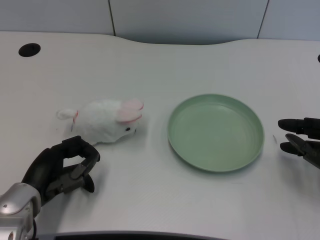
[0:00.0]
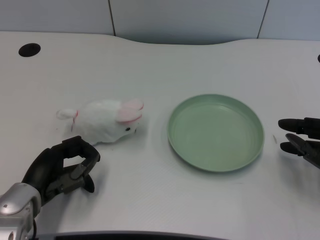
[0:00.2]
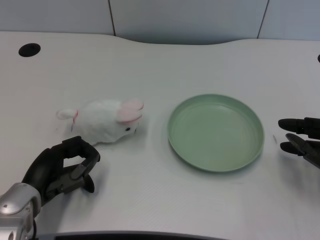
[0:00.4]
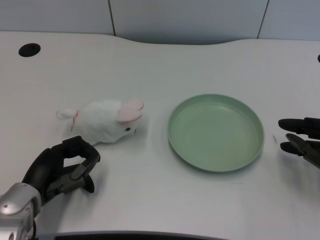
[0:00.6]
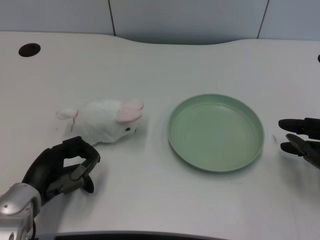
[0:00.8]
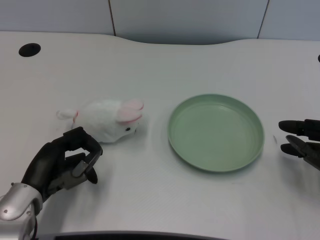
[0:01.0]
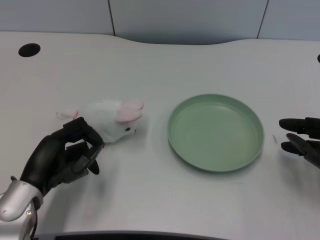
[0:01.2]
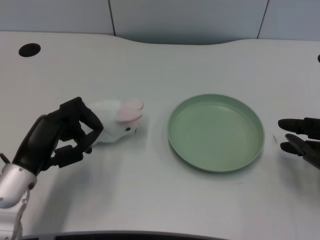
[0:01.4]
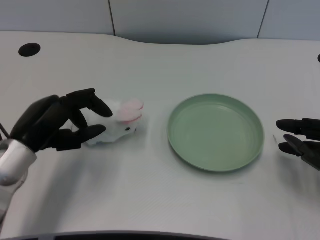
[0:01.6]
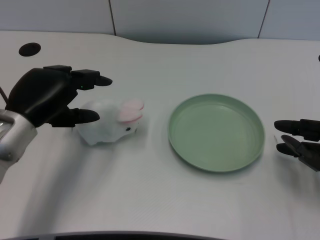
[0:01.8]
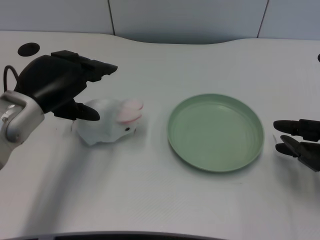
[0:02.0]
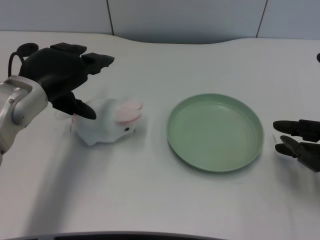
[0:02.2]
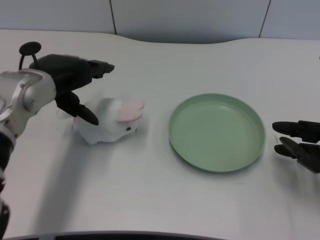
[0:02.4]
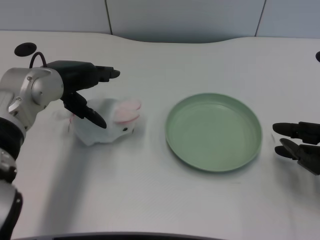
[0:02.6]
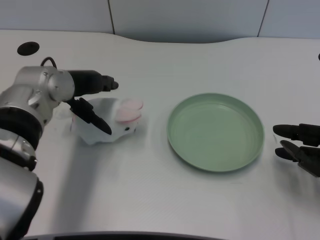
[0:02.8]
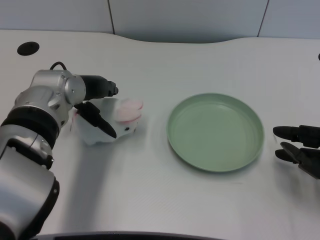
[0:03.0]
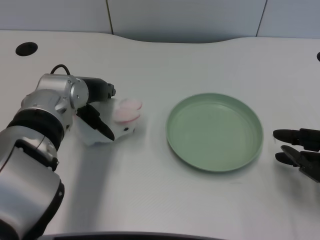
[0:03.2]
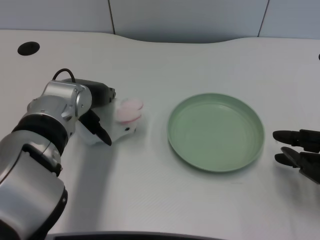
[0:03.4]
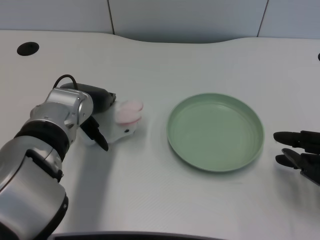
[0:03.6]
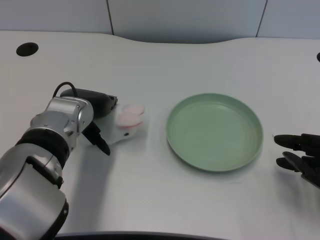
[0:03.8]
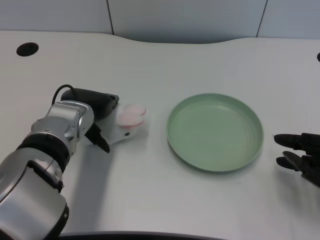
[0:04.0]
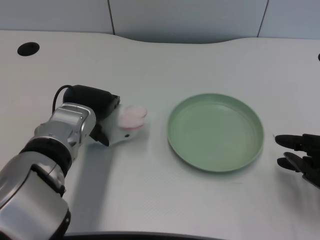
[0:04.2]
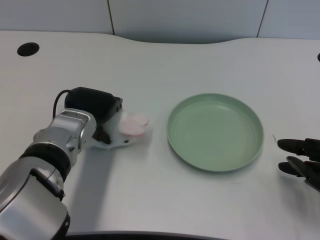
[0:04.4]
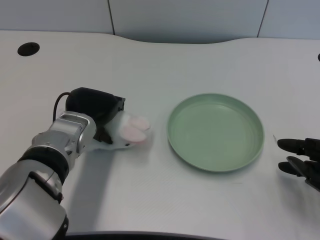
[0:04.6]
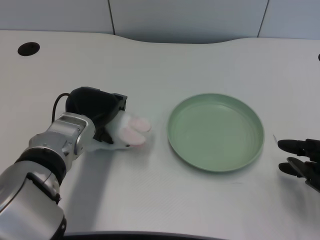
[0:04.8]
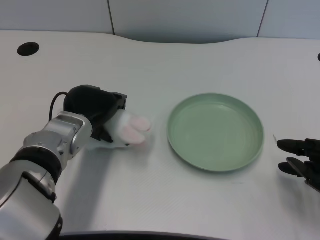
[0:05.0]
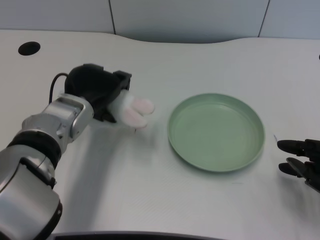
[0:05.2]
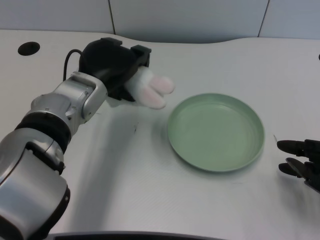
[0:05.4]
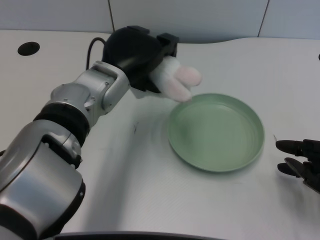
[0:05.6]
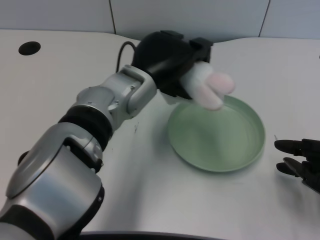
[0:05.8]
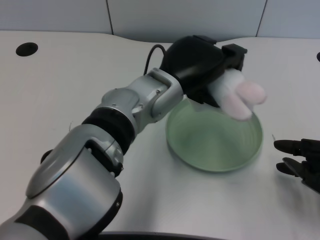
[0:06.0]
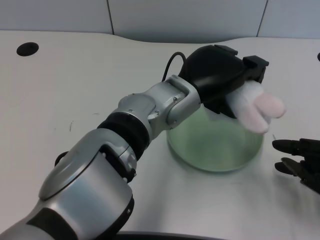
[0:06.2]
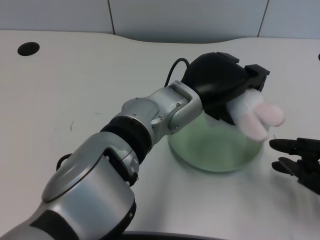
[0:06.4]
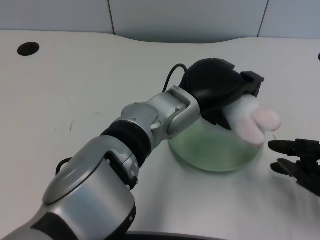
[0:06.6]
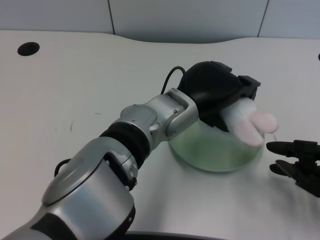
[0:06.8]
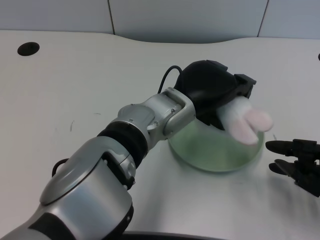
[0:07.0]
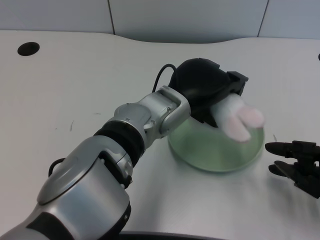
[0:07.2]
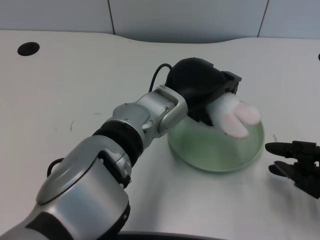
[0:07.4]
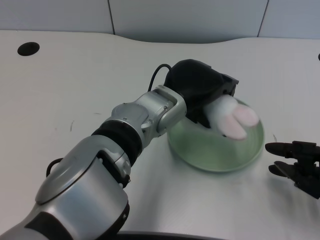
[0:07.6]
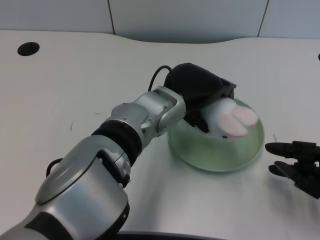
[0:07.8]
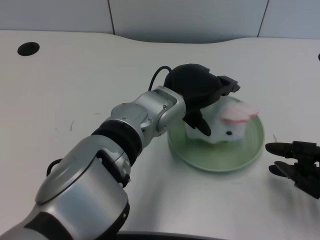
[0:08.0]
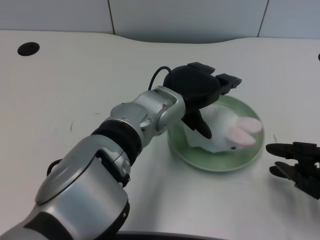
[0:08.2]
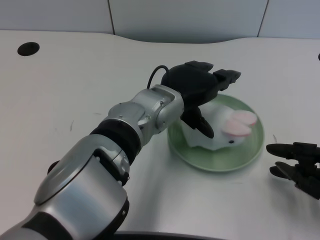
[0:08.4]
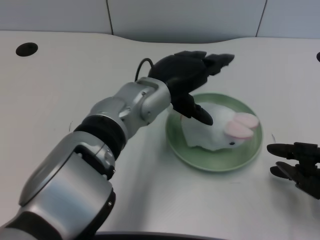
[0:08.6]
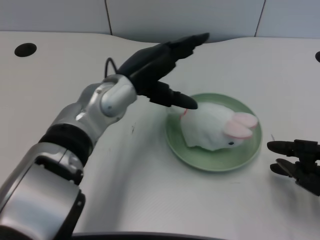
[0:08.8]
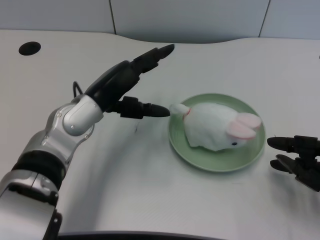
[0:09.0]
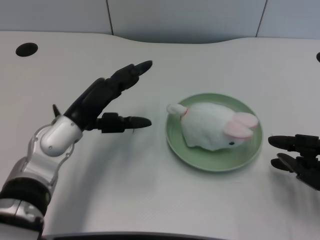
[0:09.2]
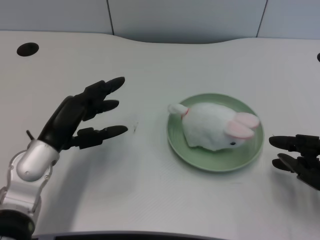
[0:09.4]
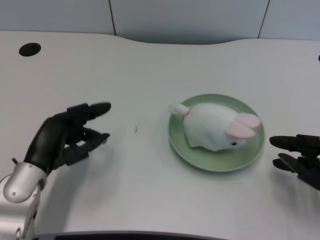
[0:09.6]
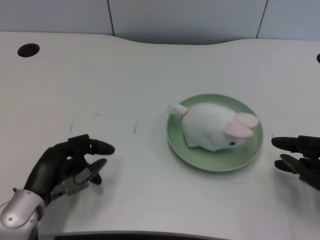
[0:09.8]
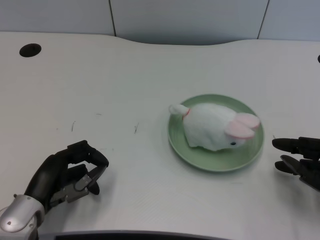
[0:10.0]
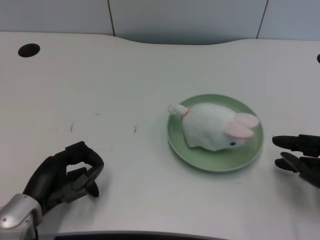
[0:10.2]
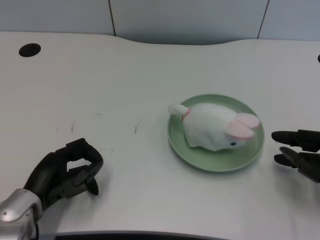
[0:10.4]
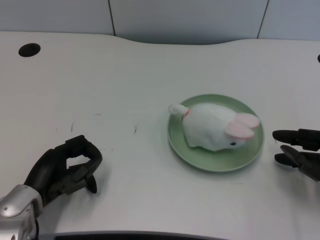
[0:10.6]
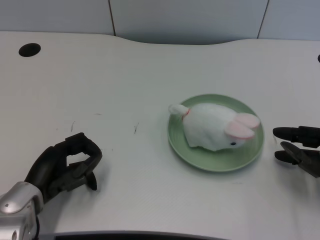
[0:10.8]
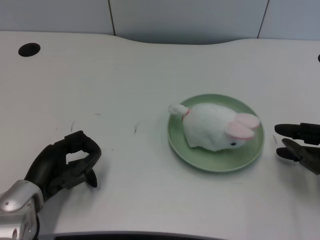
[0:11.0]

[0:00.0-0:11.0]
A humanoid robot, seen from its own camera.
Task of the whole recording: pick up the rabbit doll from the table and place it on the plate.
Step, 0:01.2 to 0:05.0: Grasp the rabbit doll with the left gripper.
Step, 0:05.2 to 0:08.0: Place the rabbit doll into the plate with the left gripper.
0:01.6 to 0:03.2: The left hand travels forward and to the right by roughly 10 cm.
0:03.2 to 0:04.8: The left hand is displaced downward by about 5 cm.
0:04.8 to 0:06.2: The left hand goes approximately 15 cm to the right and upward.
0:06.2 to 0:07.8: The hands stay close to where they were, moving slightly.
0:07.8 to 0:09.4: The left hand is displaced to the left by about 20 cm.
0:09.4 to 0:11.0: The left hand moves downward, some 5 cm.
